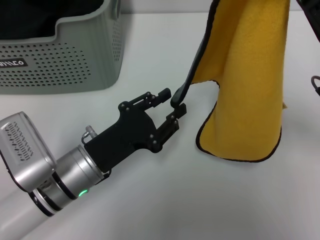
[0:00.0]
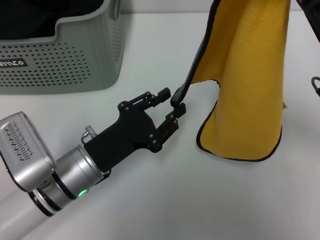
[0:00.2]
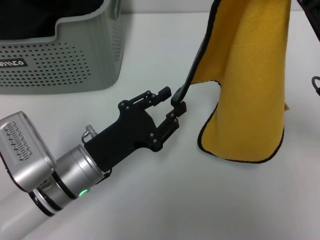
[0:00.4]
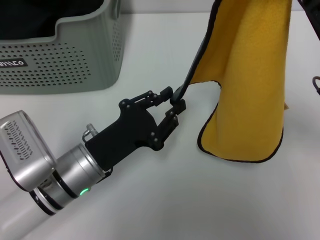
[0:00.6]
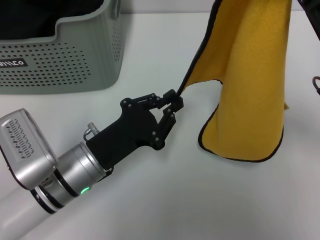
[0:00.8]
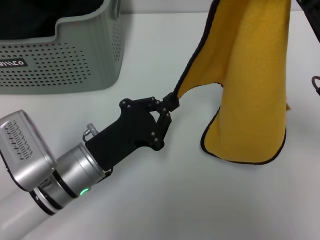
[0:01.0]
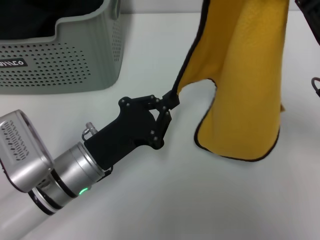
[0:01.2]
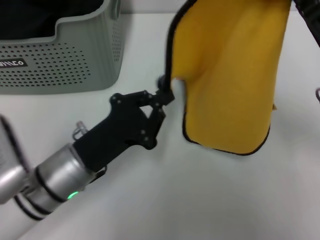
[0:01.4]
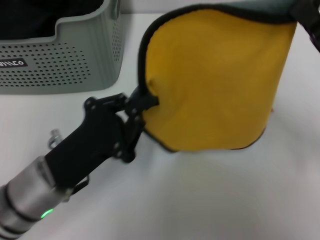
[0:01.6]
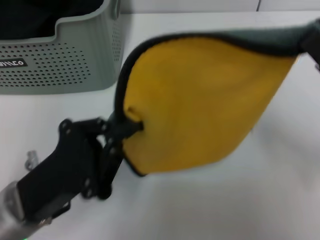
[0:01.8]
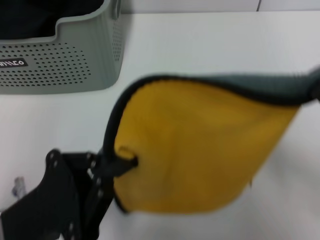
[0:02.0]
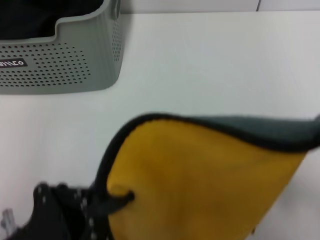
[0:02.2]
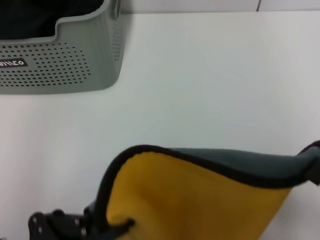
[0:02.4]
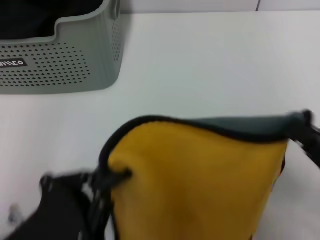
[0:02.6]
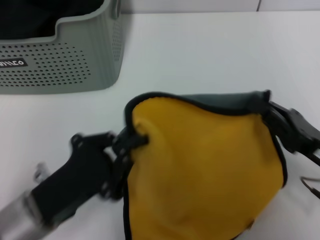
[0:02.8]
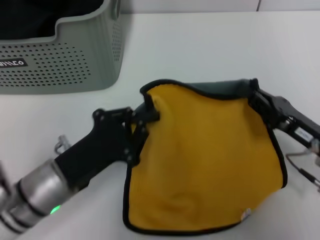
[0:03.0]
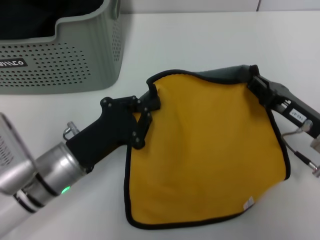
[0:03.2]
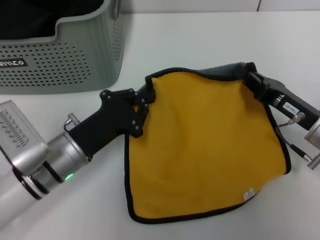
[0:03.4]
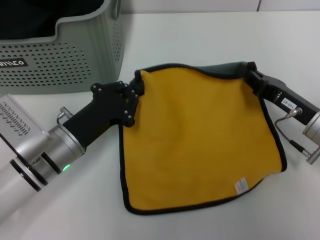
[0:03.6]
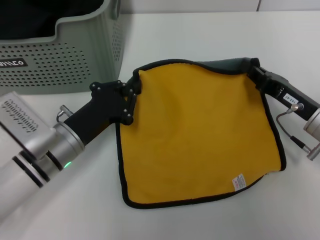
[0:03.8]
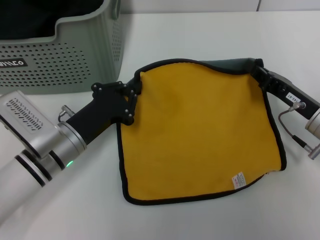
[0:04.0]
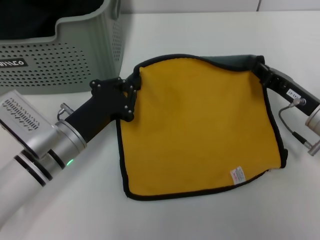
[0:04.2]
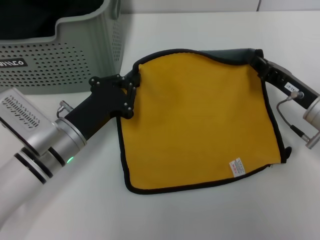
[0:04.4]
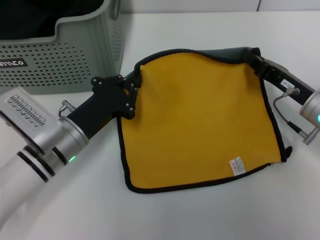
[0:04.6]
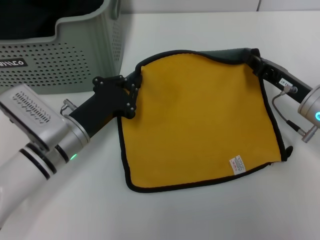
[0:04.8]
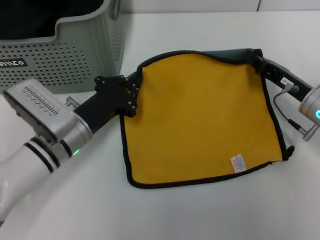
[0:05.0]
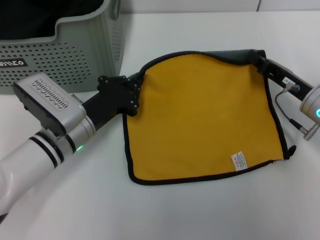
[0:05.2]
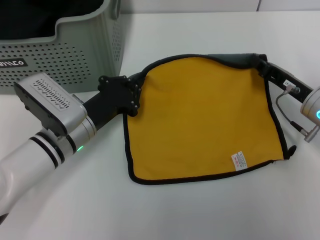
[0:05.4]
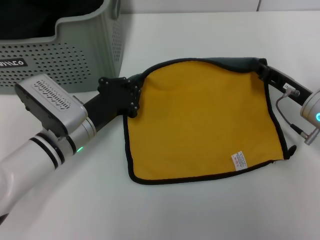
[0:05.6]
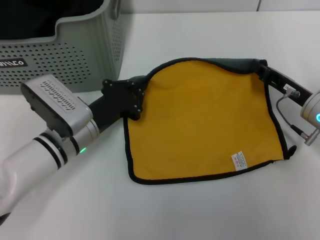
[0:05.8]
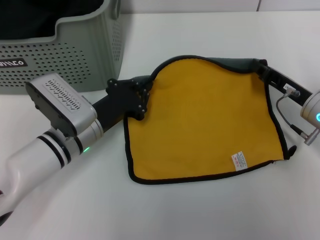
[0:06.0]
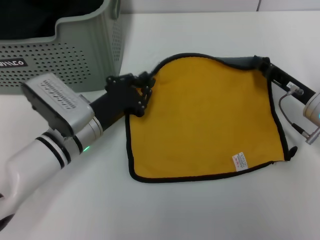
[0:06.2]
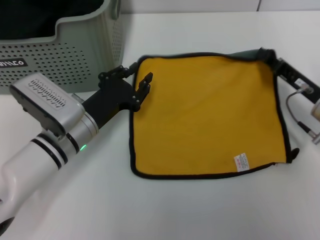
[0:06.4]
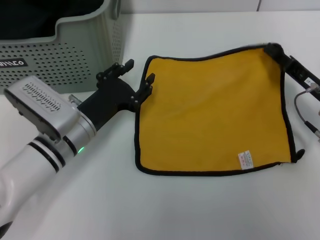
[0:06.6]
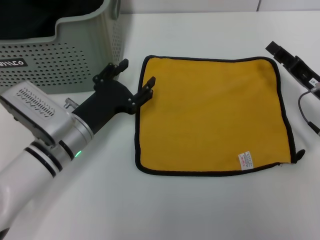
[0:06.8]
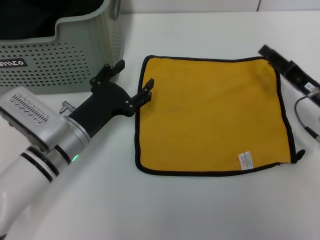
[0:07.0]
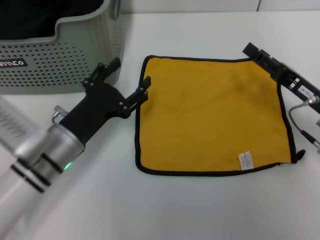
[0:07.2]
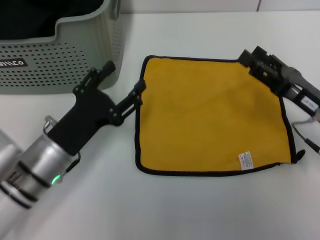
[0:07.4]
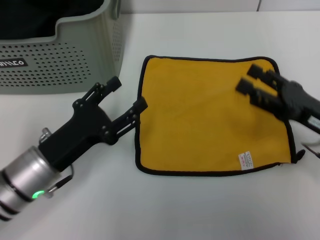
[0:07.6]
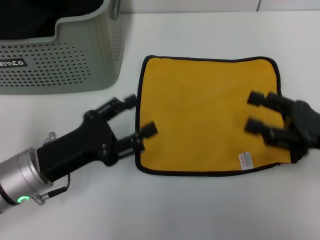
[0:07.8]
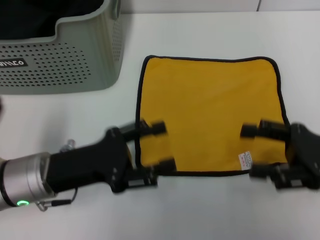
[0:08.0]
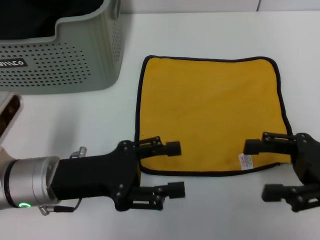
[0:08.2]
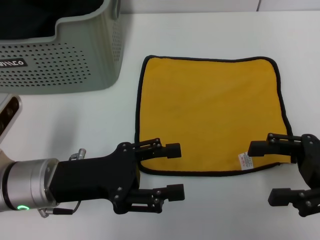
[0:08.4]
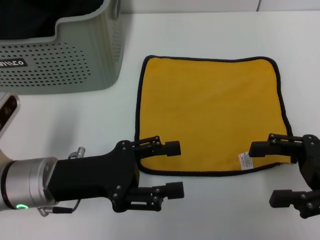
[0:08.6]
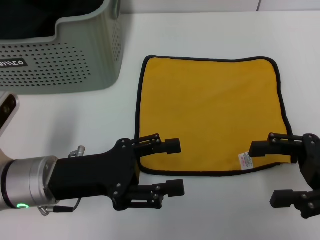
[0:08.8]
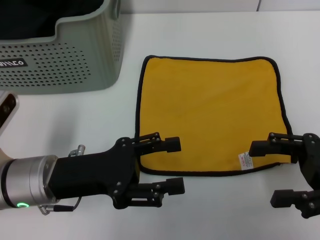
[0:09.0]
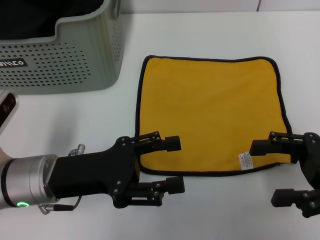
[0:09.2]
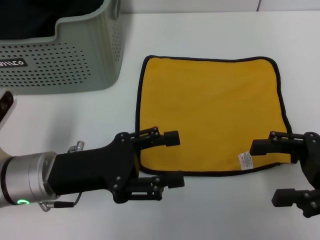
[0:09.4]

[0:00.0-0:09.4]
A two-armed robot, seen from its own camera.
Task of the whole recording: pick up the towel from the storage box and lay it flat on the table.
Step, 0:00.0 to 0:06.6: Spread the towel flat with the right gripper.
0:00.0 to 0:01.6: The left gripper closes its fingers.
0:01.6 to 0:03.2: The left gripper reaches some 10 cm backward, then returns. Meanwhile the right gripper travels downward by about 5 cm, and reaches some 10 cm backward, then returns.
0:03.2 to 0:04.8: Both grippers travel together forward, some 5 cm.
0:04.8 to 0:06.2: The grippers move only a little.
0:06.2 to 0:07.8: The left gripper is displaced backward and to the left by approximately 10 cm, and opens up, while the right gripper moves backward, about 10 cm, and opens.
